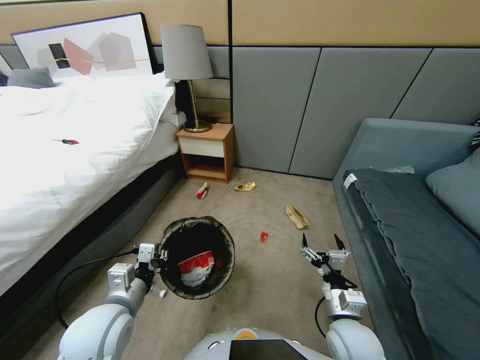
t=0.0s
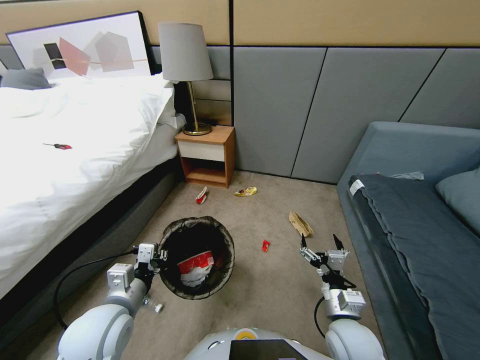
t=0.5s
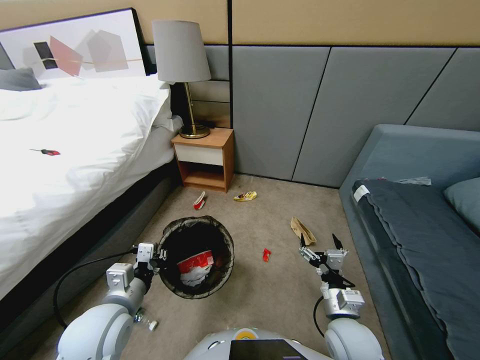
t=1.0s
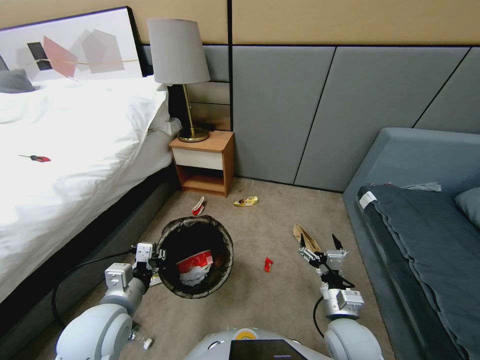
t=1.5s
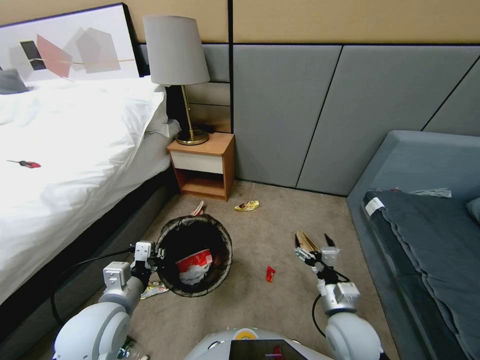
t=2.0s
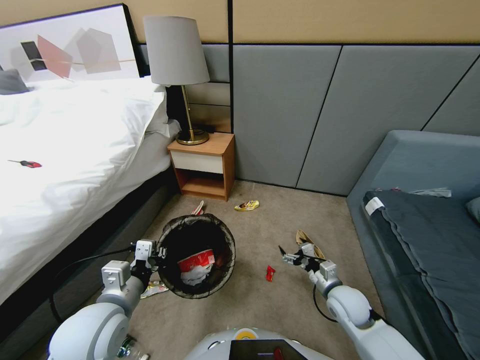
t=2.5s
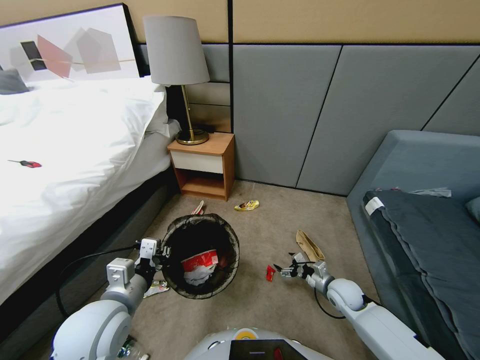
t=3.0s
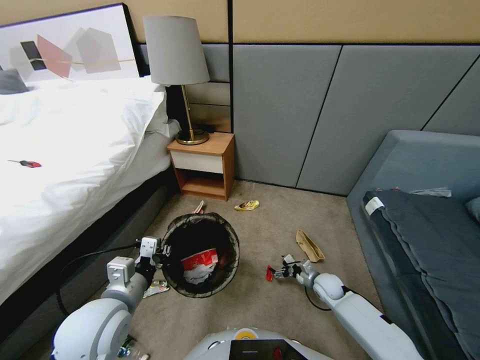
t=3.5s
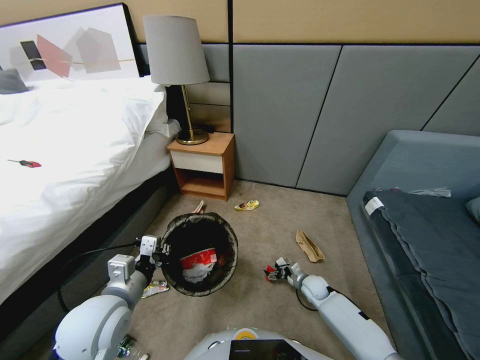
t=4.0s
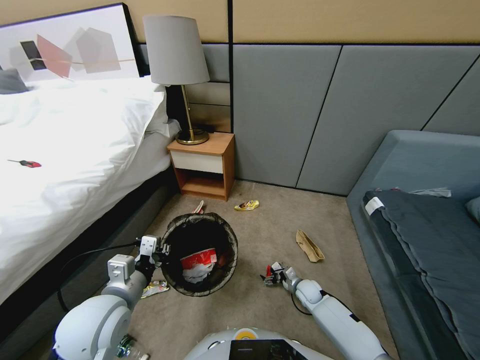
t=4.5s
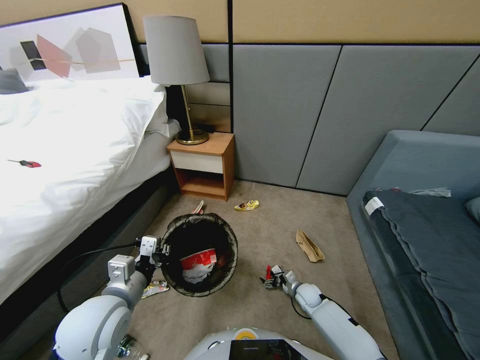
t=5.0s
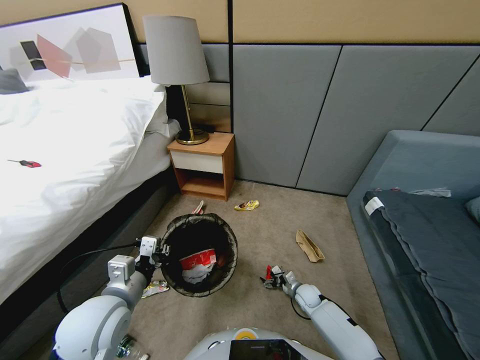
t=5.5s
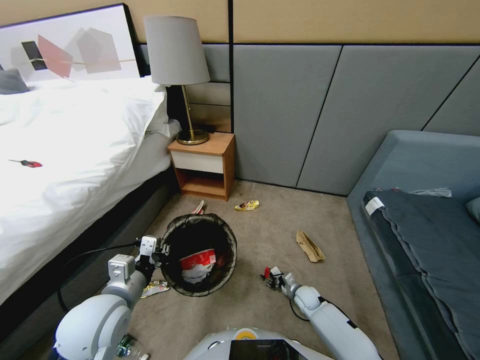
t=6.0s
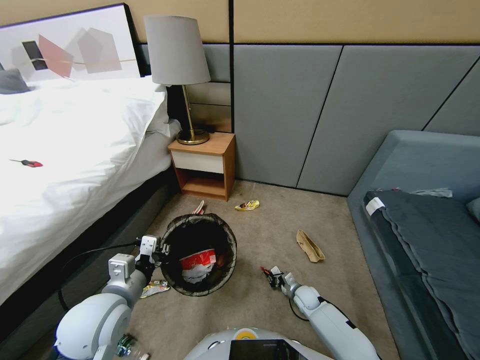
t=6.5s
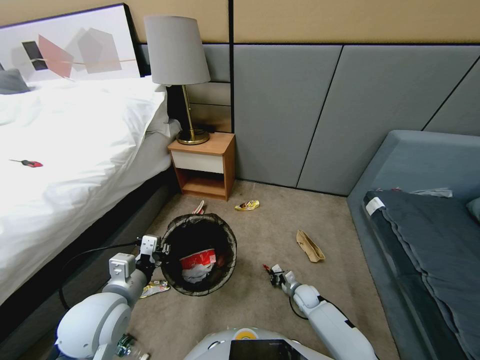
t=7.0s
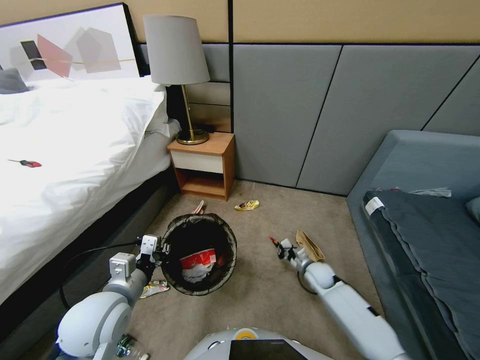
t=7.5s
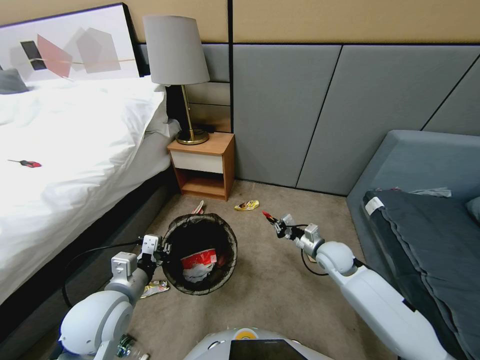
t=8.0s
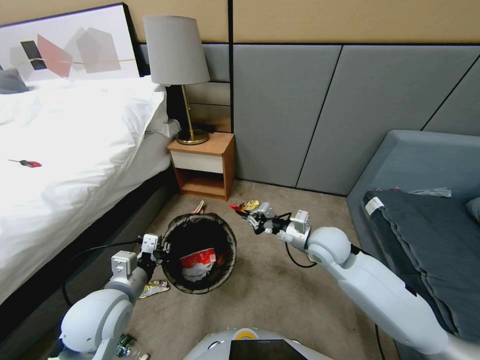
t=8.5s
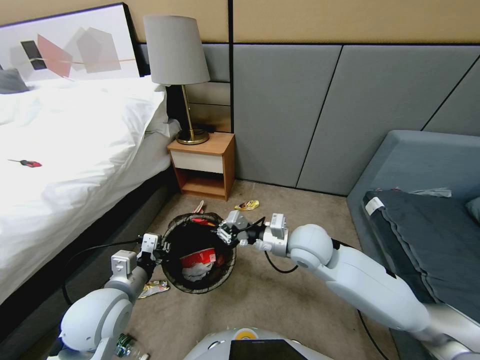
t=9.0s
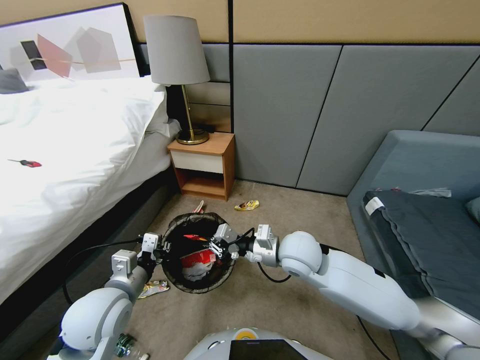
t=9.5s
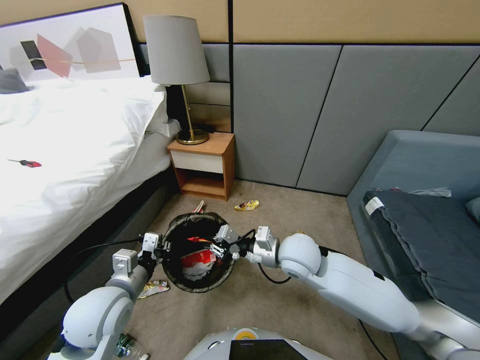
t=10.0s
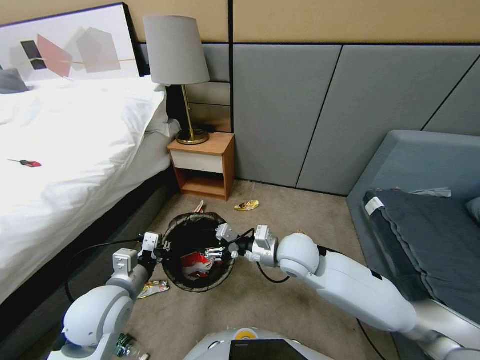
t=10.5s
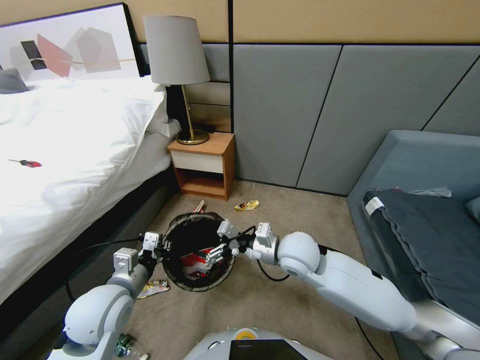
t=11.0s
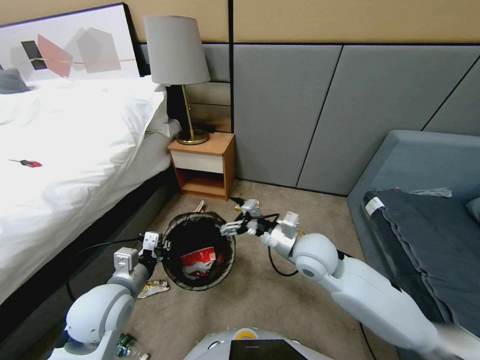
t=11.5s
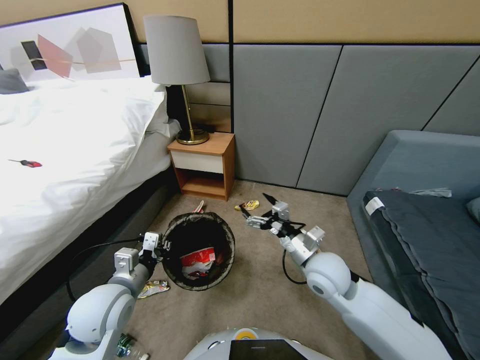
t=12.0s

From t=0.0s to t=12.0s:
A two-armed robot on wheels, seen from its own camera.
Task of the whole recording: Pick up the trash bin, then pick up the garbage from the floor and place it into the trash bin.
From t=2.0s to t=4.0s: The right gripper moves downward and forward, some 25 cm.
From t=4.0s to t=6.0s: The right gripper closes.
From t=6.0s to t=8.0s: The right gripper heads upward, covering some 30 cm, and closes.
From t=8.0s to t=10.0s: The right gripper is displaced to the left and upward by some 15 cm.
From t=10.0s to t=12.0s: The right gripper shifts some 10 cm to the right and downward, and opens its fingers.

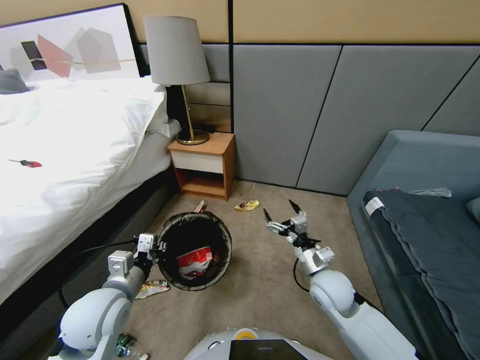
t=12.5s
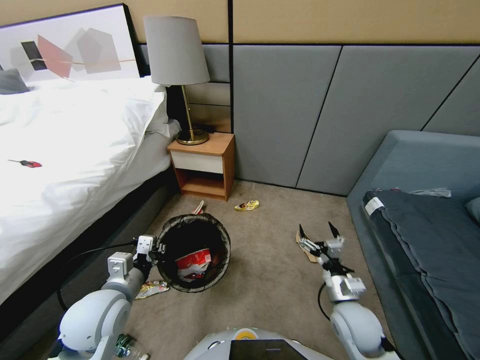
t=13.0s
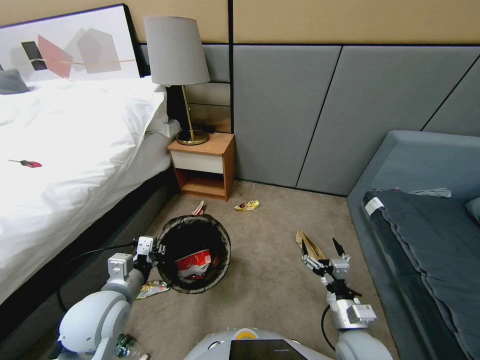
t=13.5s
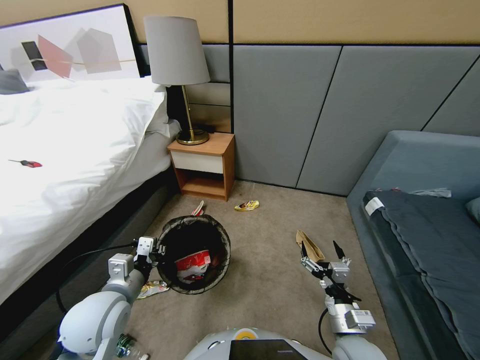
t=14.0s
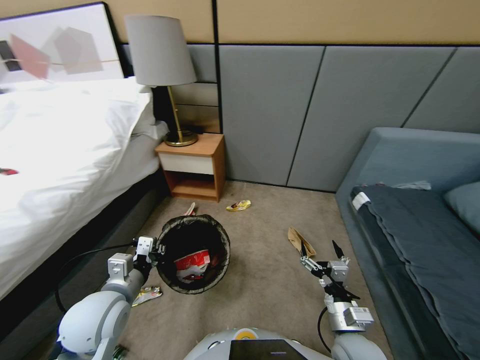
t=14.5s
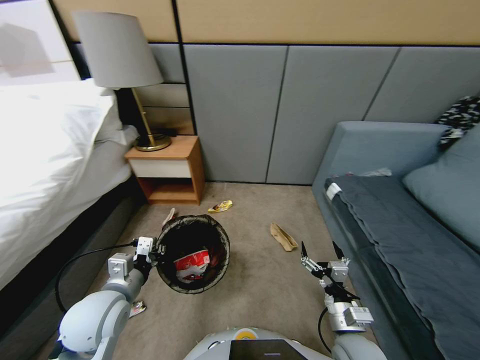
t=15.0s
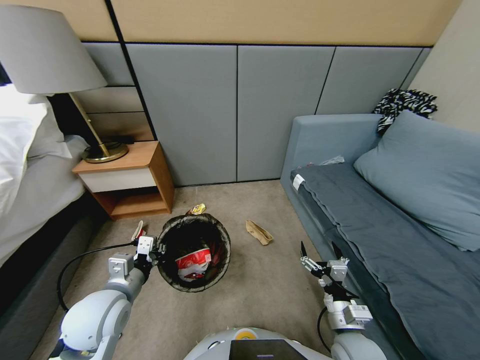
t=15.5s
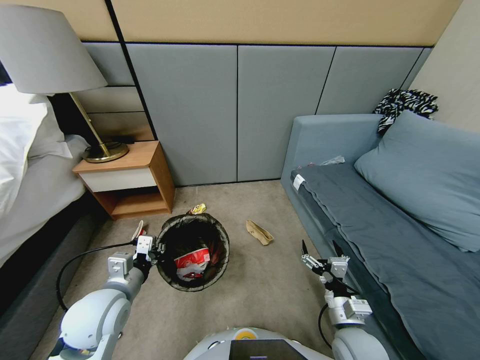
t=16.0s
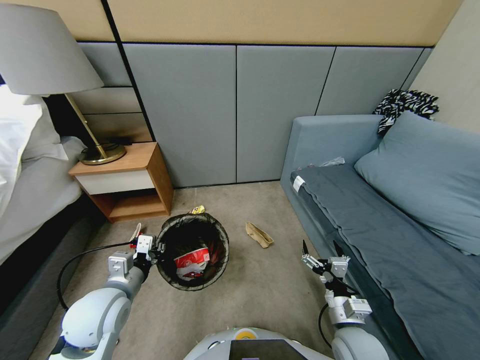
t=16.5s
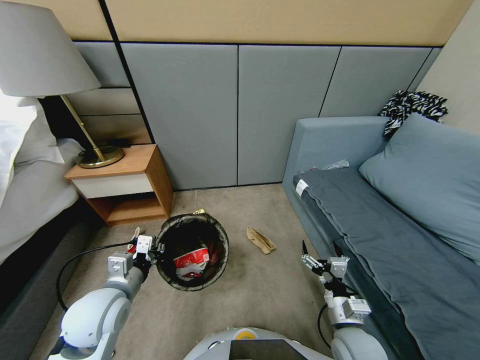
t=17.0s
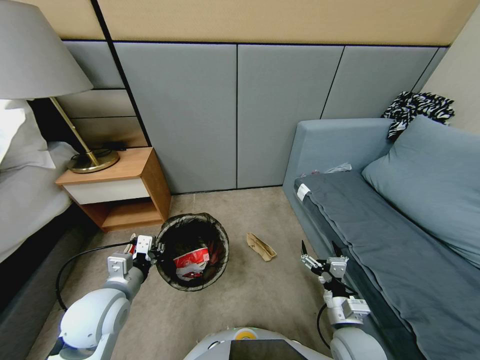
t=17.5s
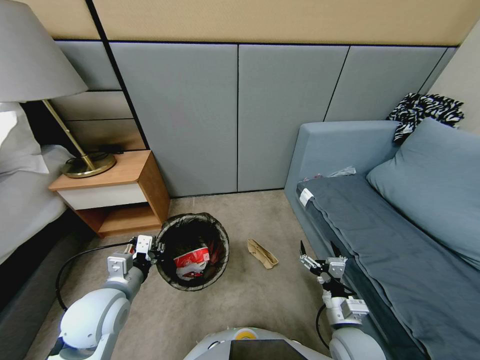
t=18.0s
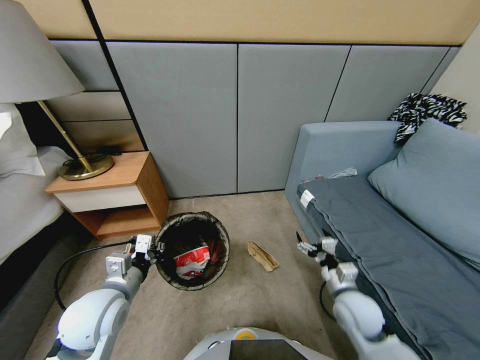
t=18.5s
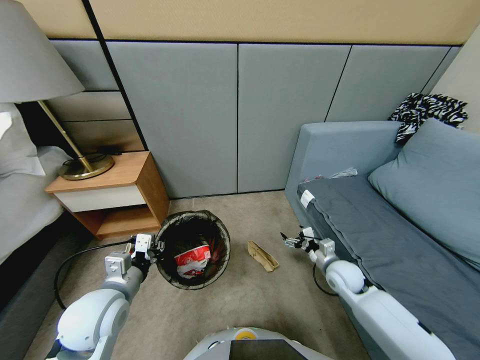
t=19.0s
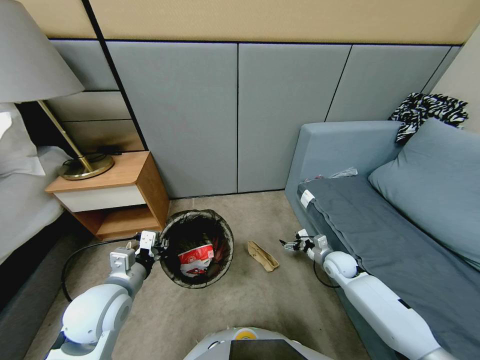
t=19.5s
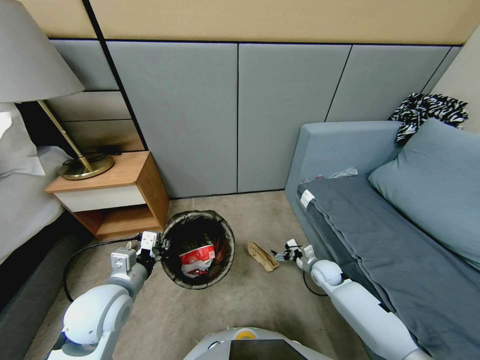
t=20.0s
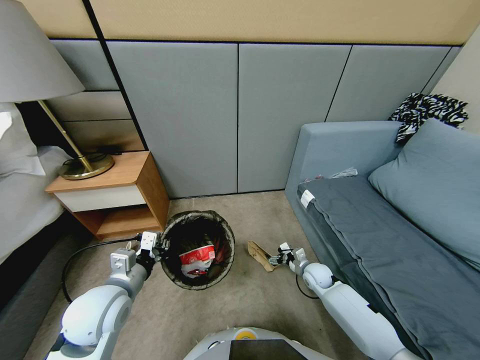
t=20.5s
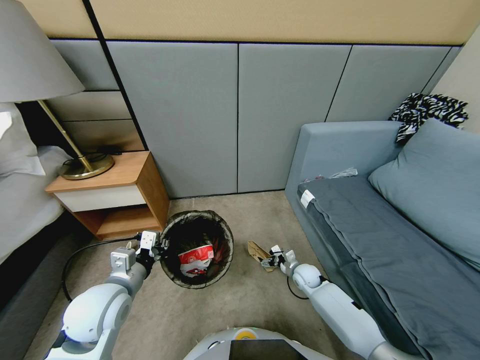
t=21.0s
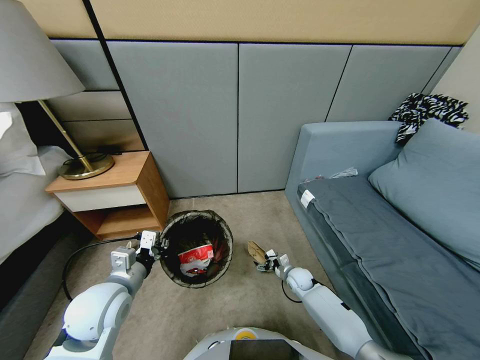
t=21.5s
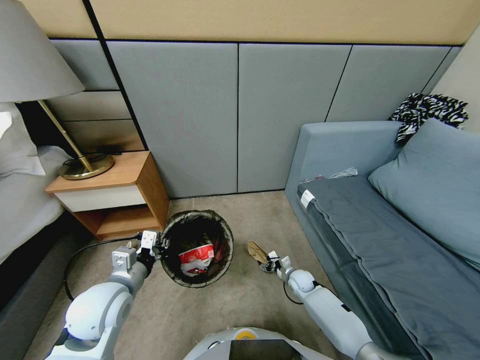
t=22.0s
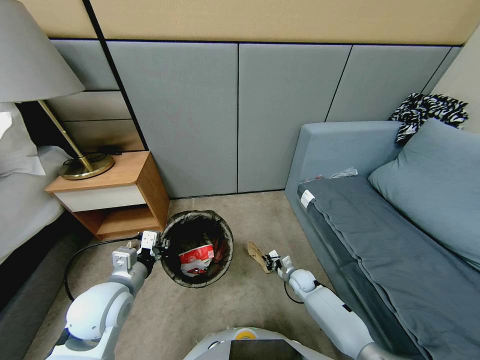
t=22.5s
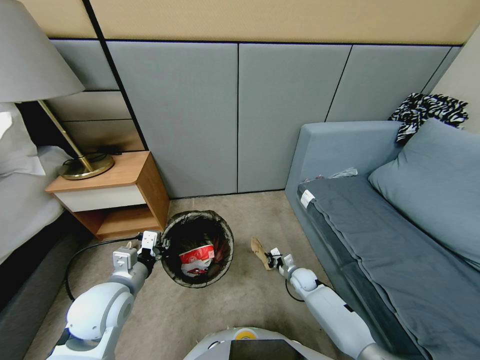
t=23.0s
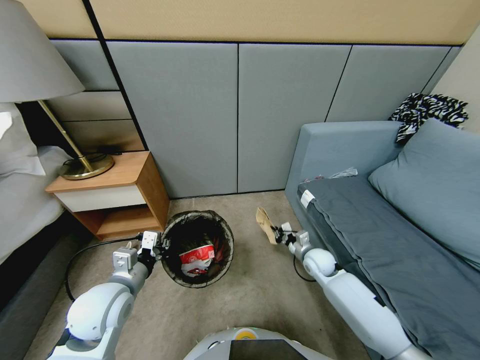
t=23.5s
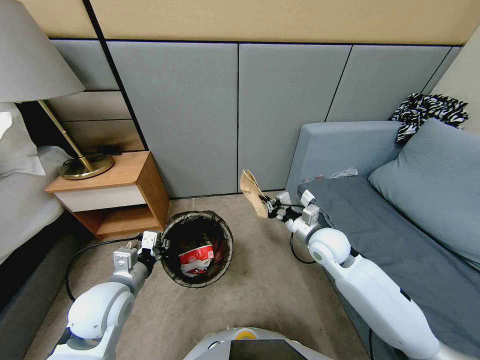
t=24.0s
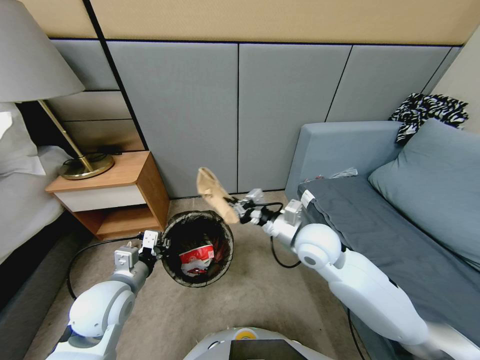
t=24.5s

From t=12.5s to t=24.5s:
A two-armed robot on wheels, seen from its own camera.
Task of the whole recording: Pick up the trash bin, then pick up the garbage from the floor and place it into the trash bin.
From t=12.5s to t=14.5s: The right gripper heads backward, covering roughly 10 cm.
From t=16.5s to t=18.5s: The right gripper goes approximately 10 cm forward and to the right.
From t=18.5s to t=20.5s: The right gripper heads downward and forward, covering approximately 20 cm.
From t=20.5s to t=22.5s: The right gripper heads downward, covering about 5 cm, and closes.
From t=22.5s to t=24.5s: The right gripper travels upward by approximately 35 cm.

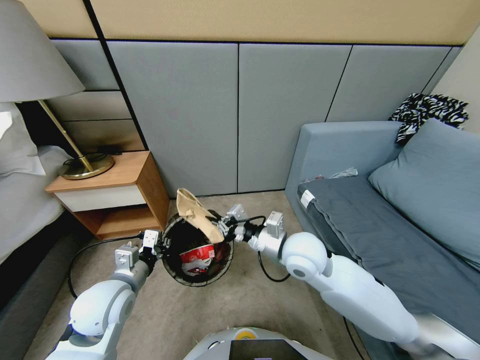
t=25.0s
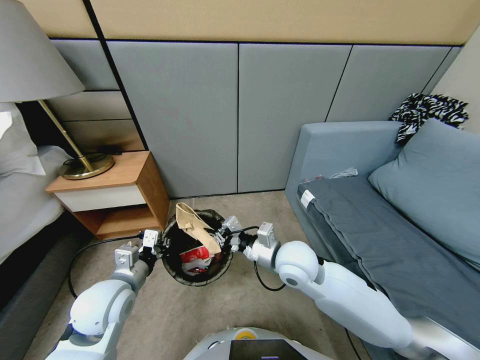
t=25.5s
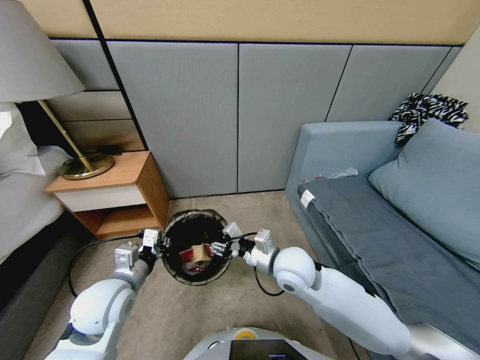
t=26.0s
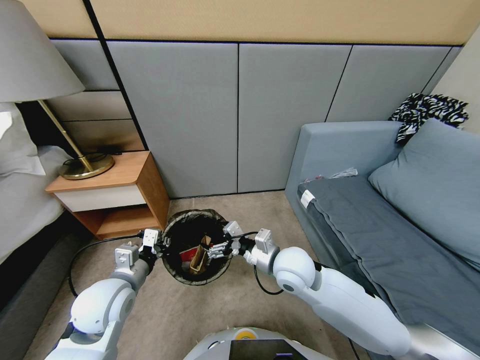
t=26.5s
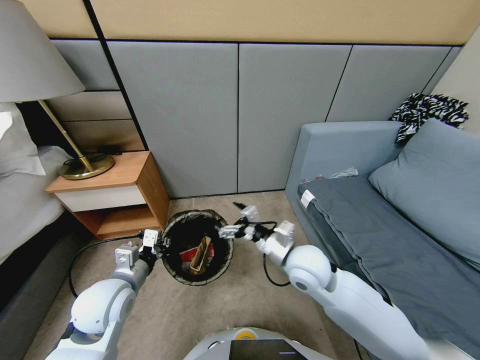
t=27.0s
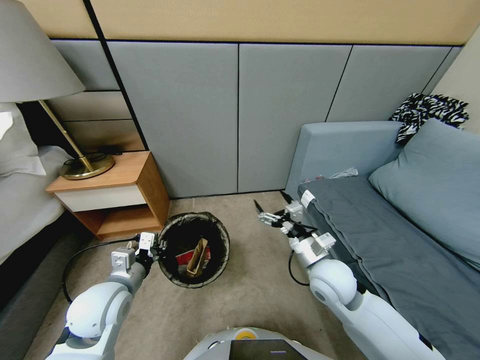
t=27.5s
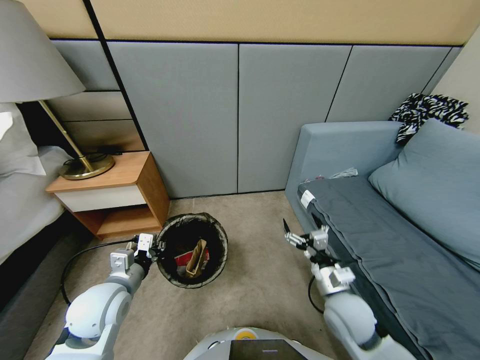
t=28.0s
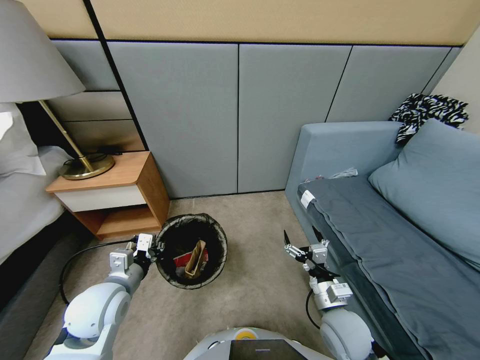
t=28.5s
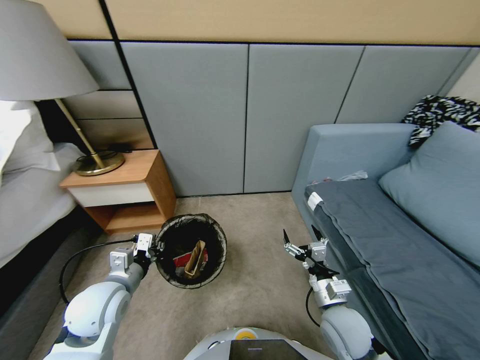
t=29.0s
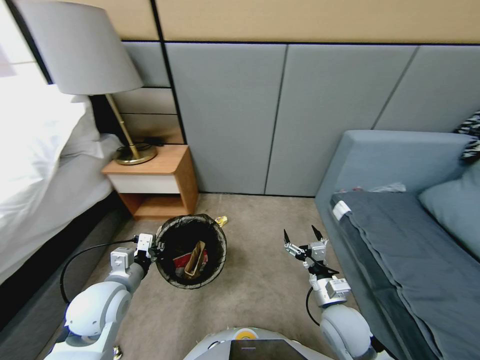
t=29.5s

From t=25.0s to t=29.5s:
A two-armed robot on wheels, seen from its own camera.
Task of the whole recording: Pick up the trash bin, then pick up the garbage from the floor and place it into the trash bin.
From t=25.0s to t=27.0s: The right gripper opens.
From t=27.0s to t=29.5s: The right gripper shifts some 15 cm downward, backward and to the right.
